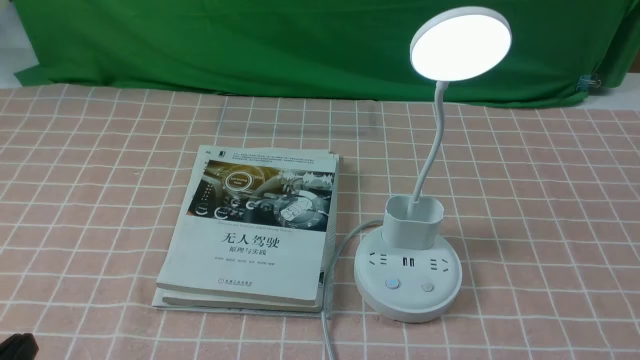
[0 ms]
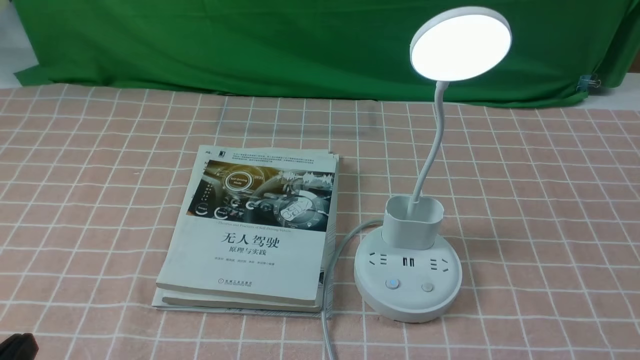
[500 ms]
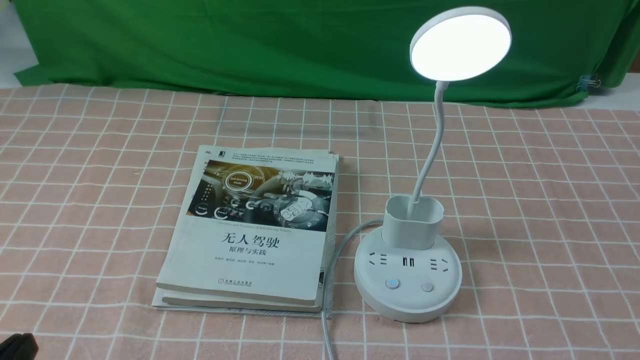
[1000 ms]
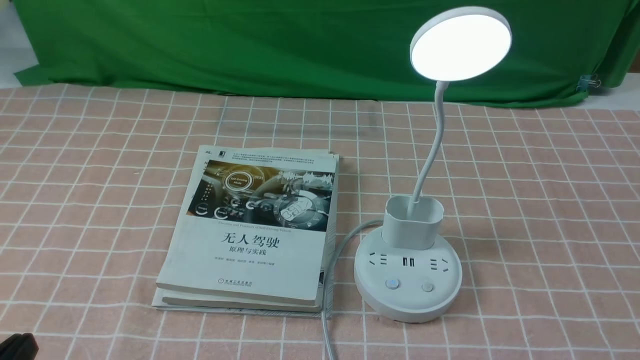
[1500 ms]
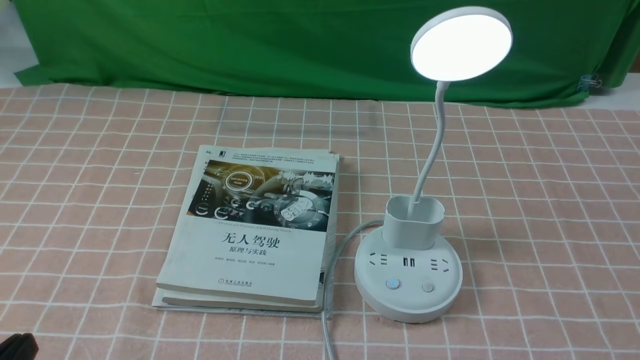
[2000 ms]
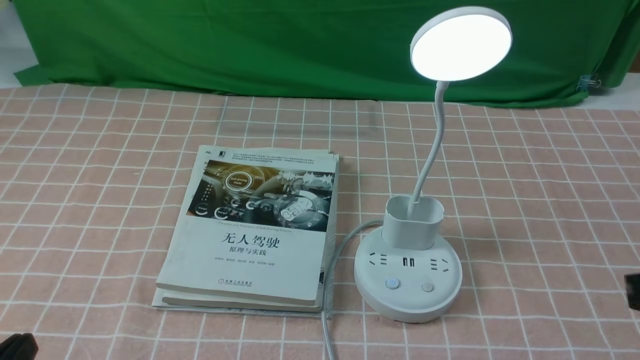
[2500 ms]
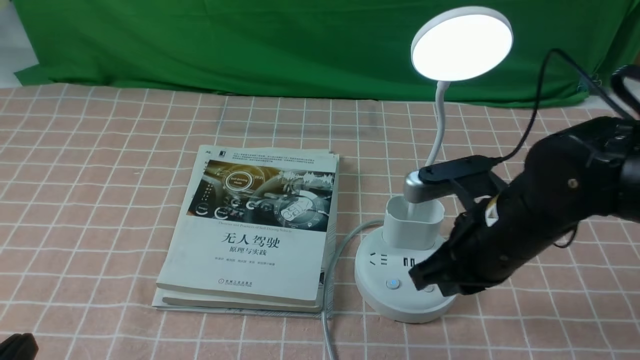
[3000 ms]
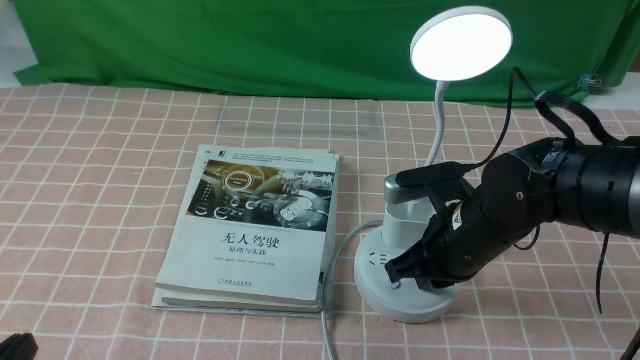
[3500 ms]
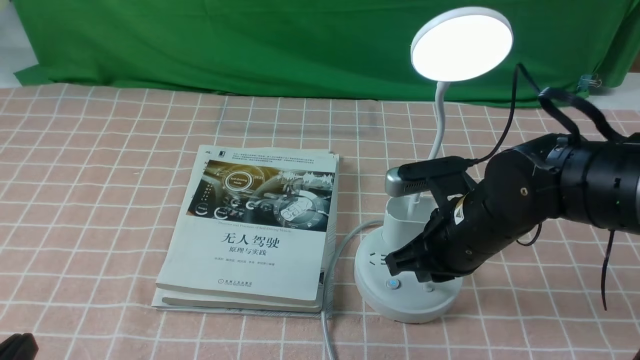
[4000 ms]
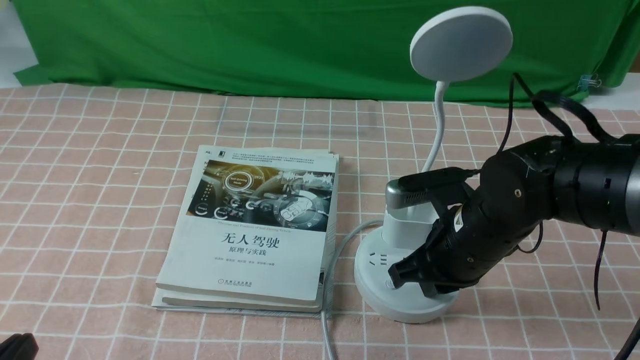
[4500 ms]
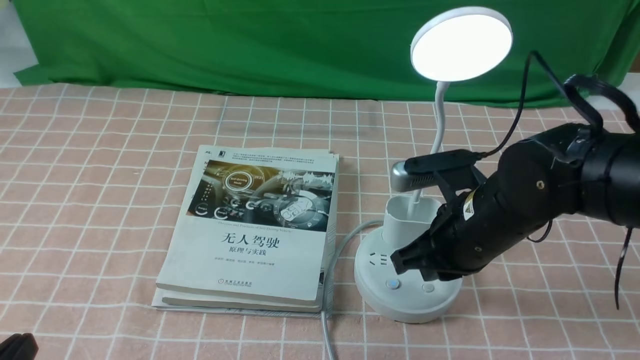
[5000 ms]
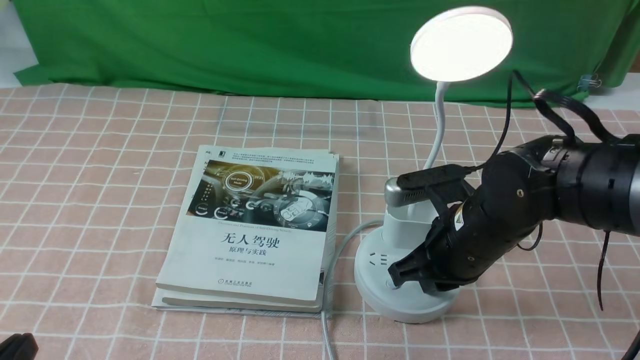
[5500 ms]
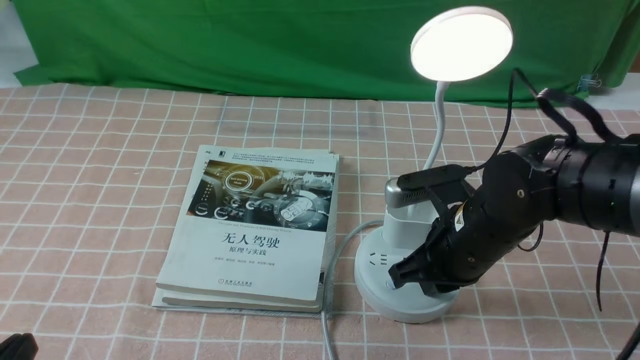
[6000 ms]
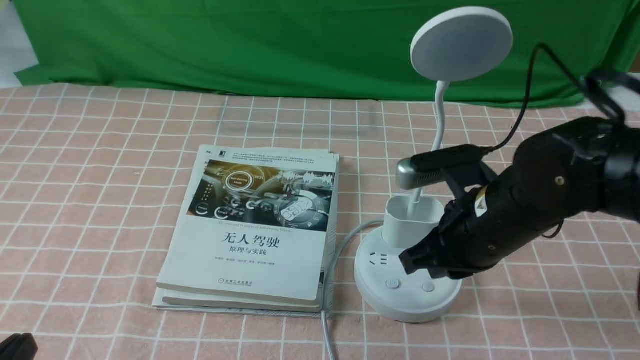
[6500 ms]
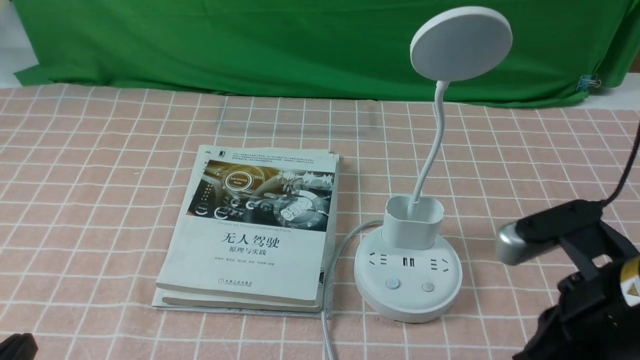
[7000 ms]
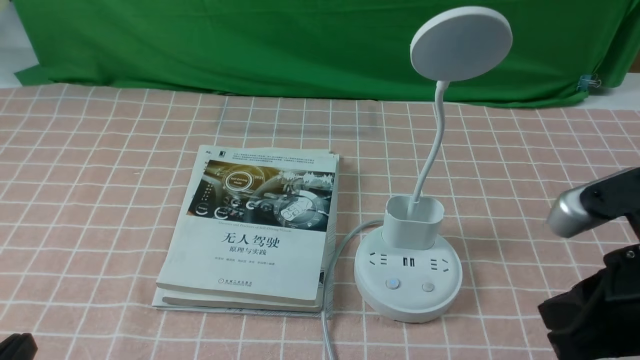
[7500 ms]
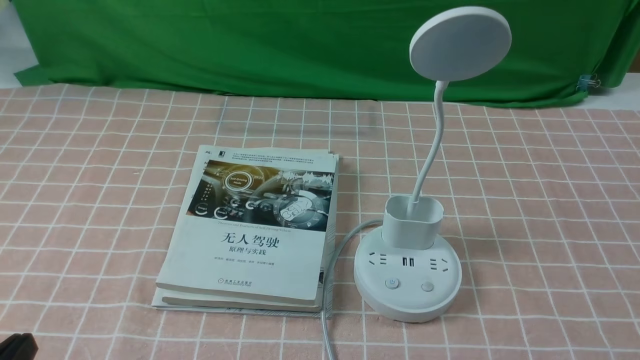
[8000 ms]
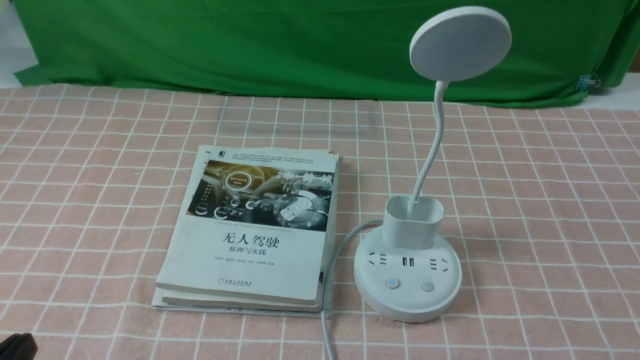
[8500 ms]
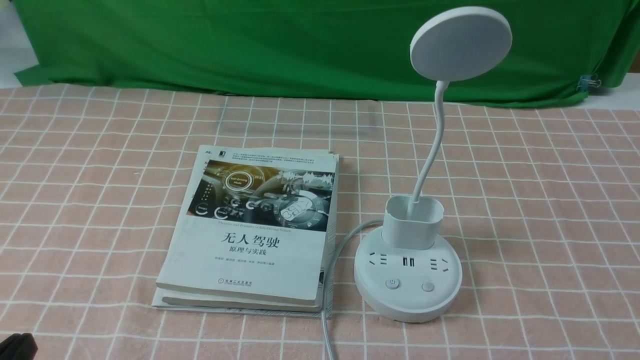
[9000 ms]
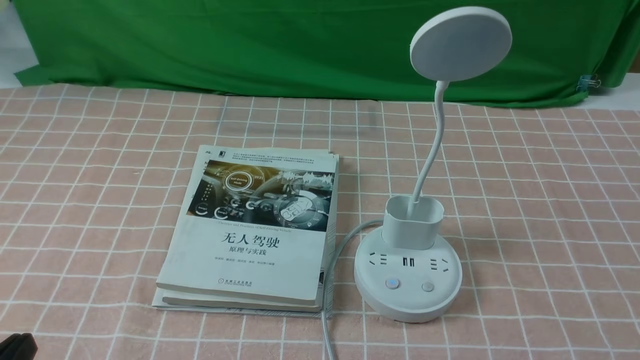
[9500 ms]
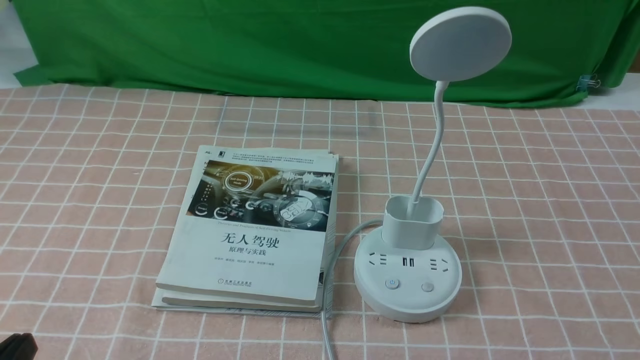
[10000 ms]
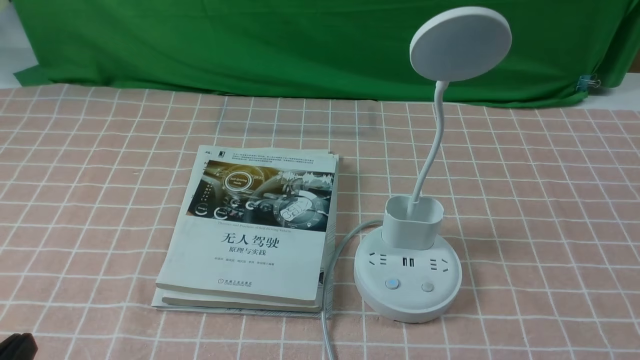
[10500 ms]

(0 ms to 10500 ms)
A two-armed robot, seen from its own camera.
Task of the whole recording: turn off the table lamp on the pink coffee tablecloth by hand.
Step, 0 ms - 6000 ms: use the right arm to press the button switch on the lamp holder.
2000 ms - 4000 ms: The right gripper heads forward and to the left, covering roughly 30 cm, and closes.
4000 ms - 6500 ms: The grippers move only a little.
6500 ms - 8500 ms: The right gripper heads backward and to the right, covering some 25 cm.
